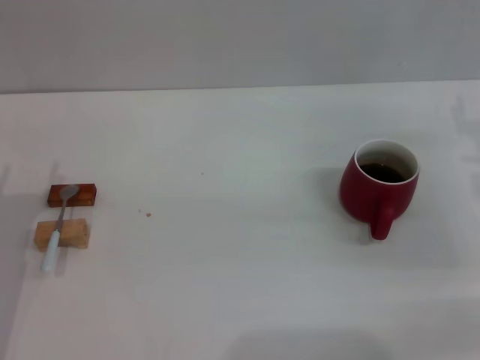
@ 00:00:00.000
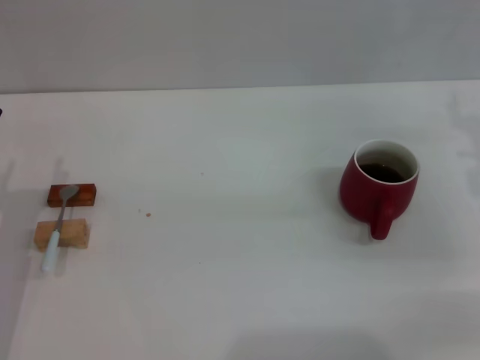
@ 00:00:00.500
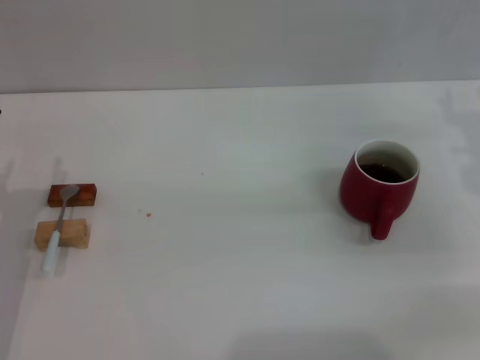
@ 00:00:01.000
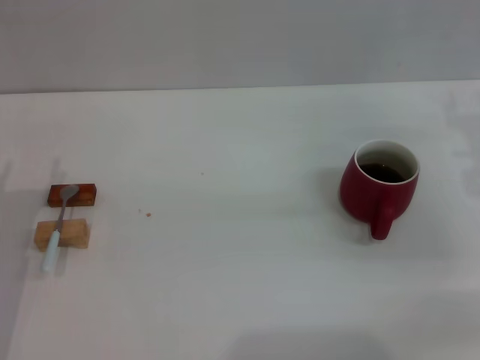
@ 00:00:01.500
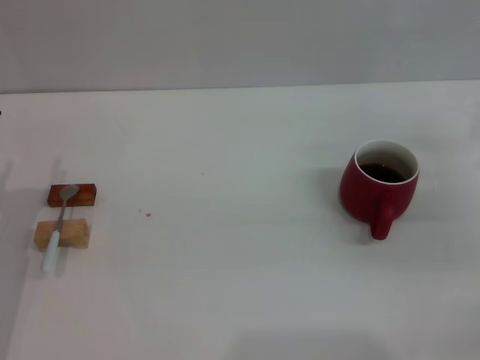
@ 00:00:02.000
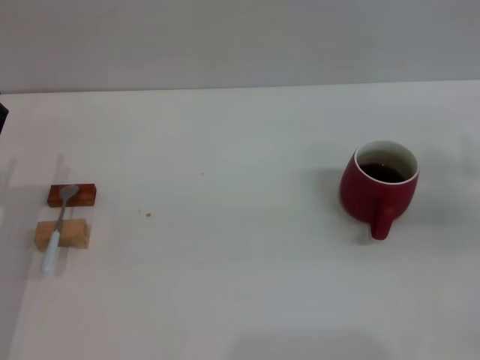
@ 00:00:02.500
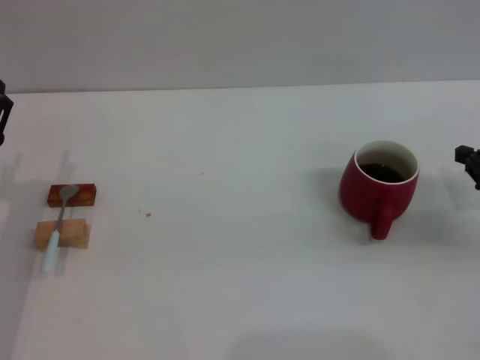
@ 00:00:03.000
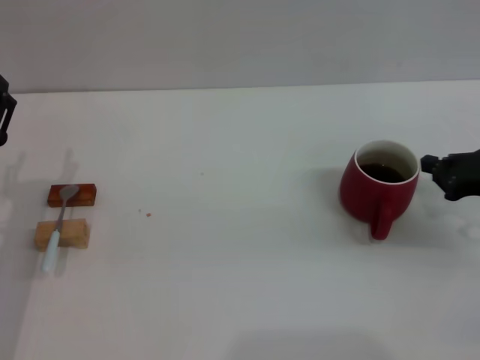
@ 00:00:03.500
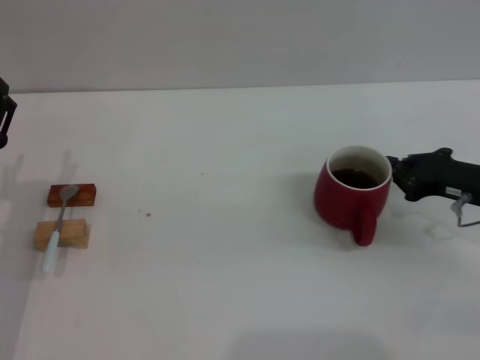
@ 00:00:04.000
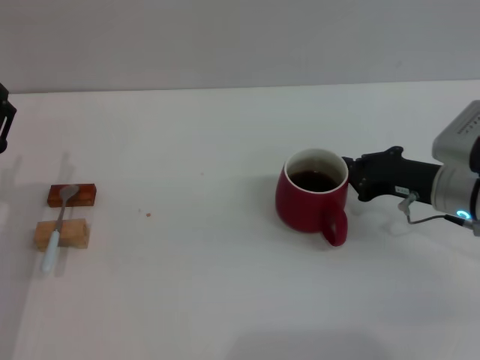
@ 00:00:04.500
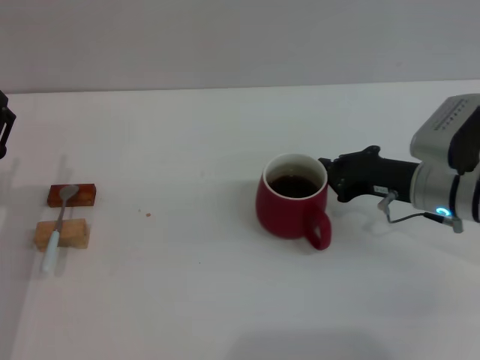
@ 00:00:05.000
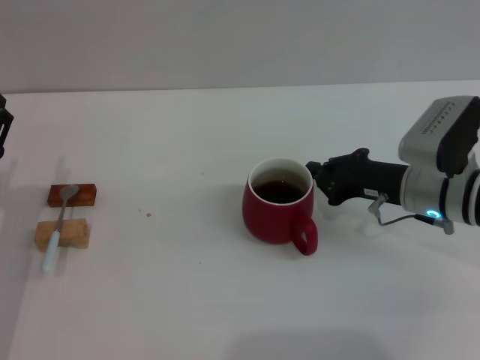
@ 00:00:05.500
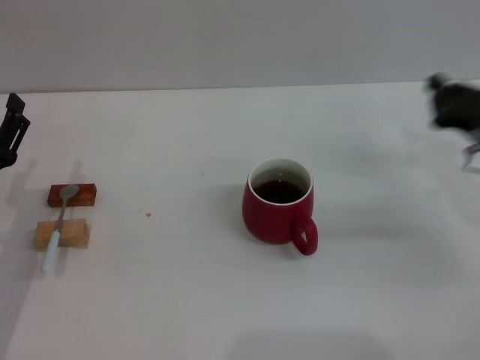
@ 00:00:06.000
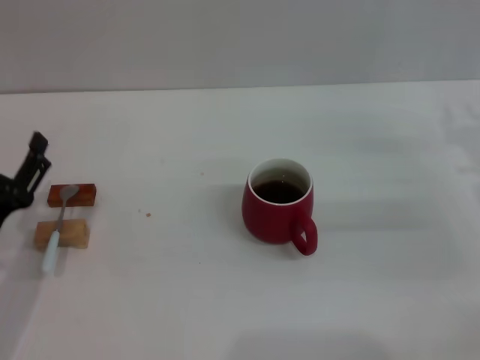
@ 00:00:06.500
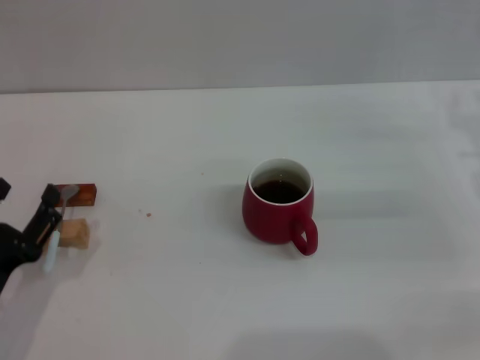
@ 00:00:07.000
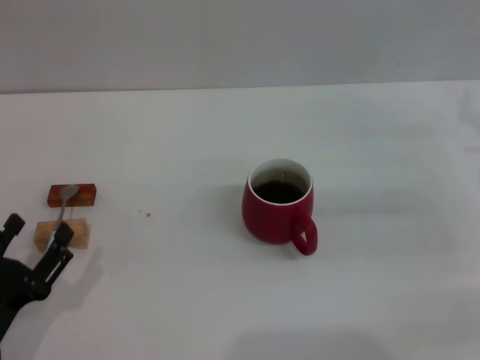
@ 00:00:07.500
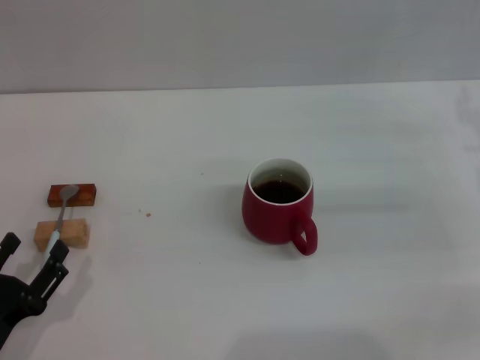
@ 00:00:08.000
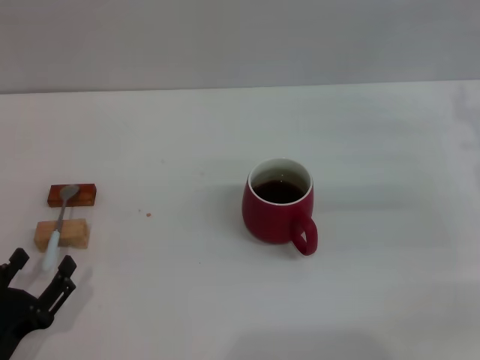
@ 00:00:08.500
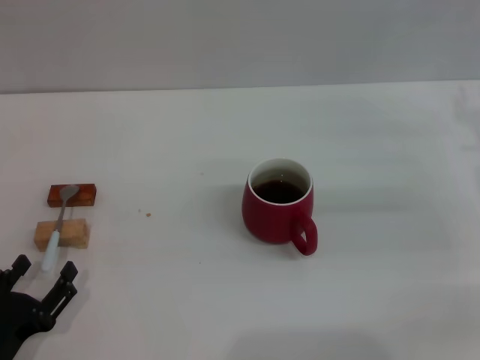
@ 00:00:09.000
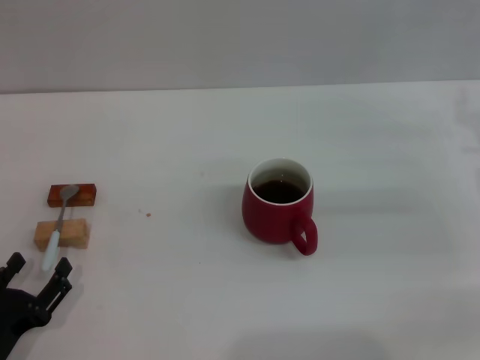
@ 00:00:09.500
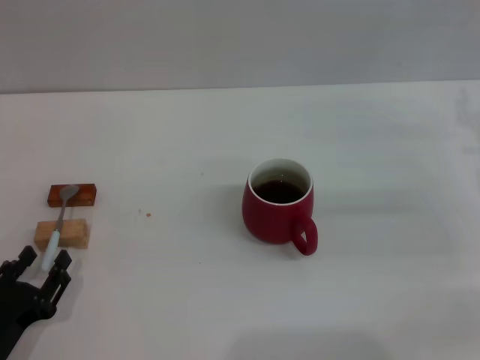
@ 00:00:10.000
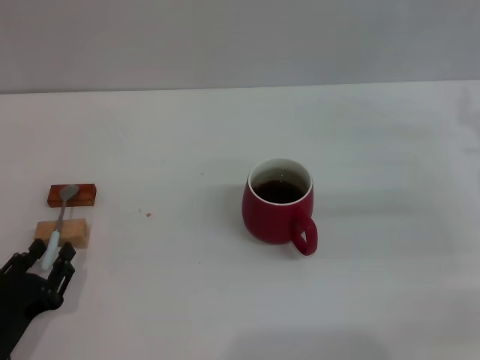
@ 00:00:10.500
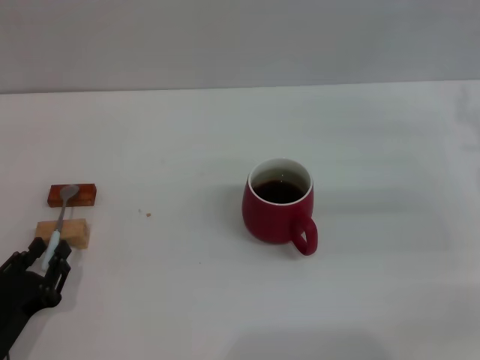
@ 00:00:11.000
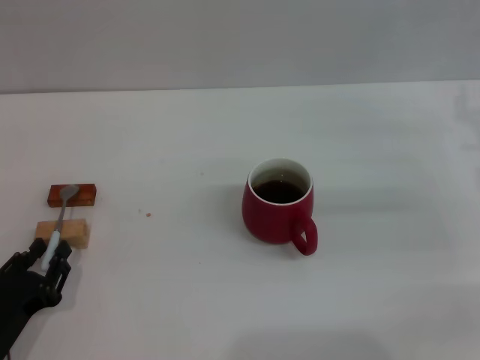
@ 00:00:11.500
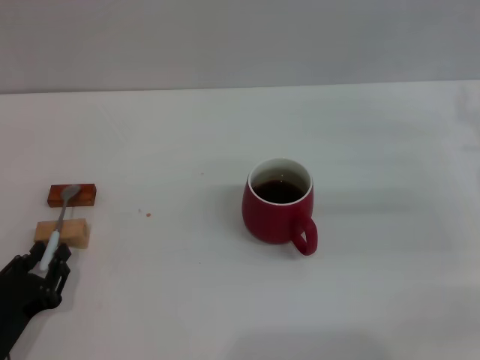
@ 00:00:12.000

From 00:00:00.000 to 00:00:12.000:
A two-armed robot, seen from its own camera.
Task of the whole recording: Move the red cup to the center, lift the blue spoon, stir it three times in the cup, and put the spoon into the cup.
Step, from 00:00:00.000 to 00:00:05.500: Move the cup with coffee to the center of view with the right gripper.
From 00:00:02.000 to 00:00:04.000: The right gripper is displaced to the left by roughly 5 cm, and closes.
From 00:00:04.000 to 00:00:06.000: The right gripper moves about 10 cm to the left and comes back.
From 00:00:06.000 to 00:00:08.000: The right gripper changes place by roughly 5 cm, and opens up, while the left gripper goes some 15 cm backward and downward.
From 00:00:08.000 to 00:00:10.000: The grippers make only small movements.
From 00:00:10.000 to 00:00:12.000: The left gripper closes its fingers.

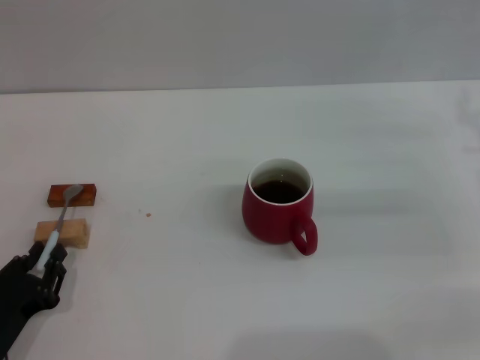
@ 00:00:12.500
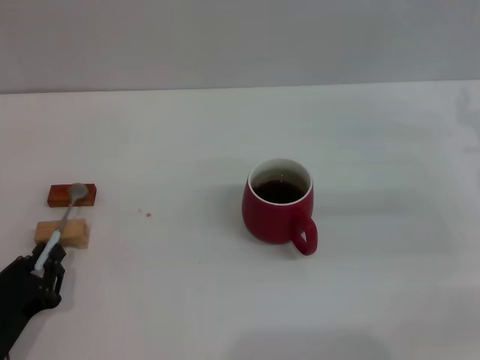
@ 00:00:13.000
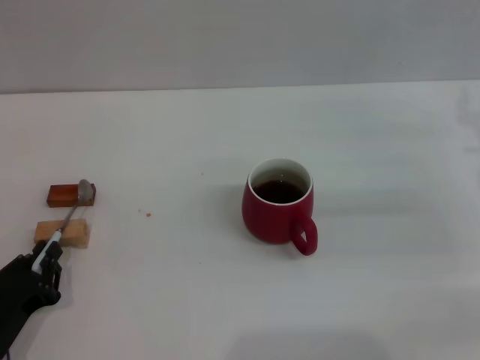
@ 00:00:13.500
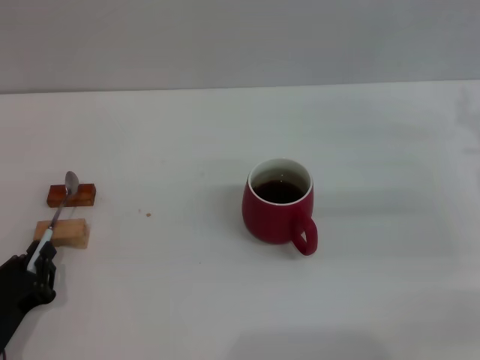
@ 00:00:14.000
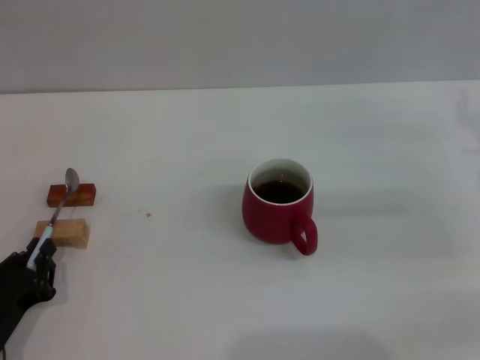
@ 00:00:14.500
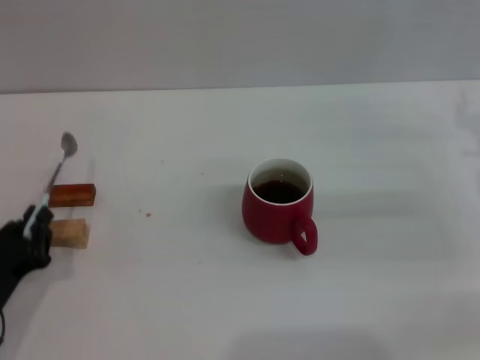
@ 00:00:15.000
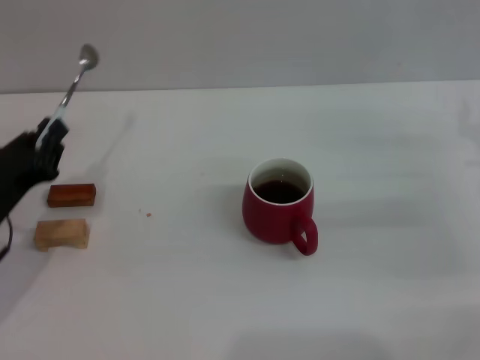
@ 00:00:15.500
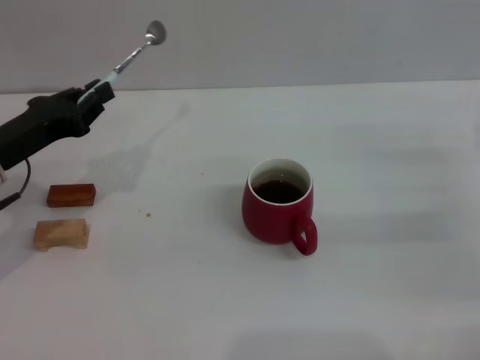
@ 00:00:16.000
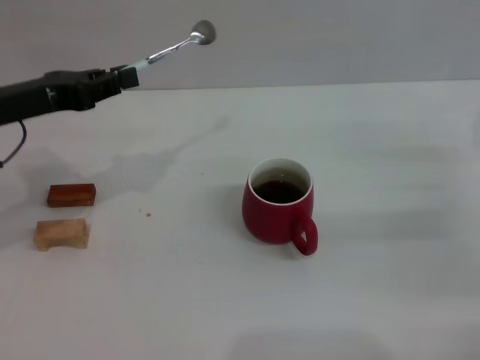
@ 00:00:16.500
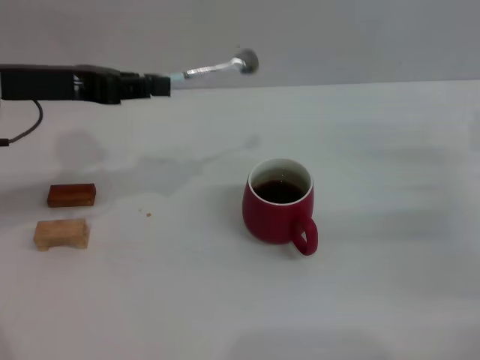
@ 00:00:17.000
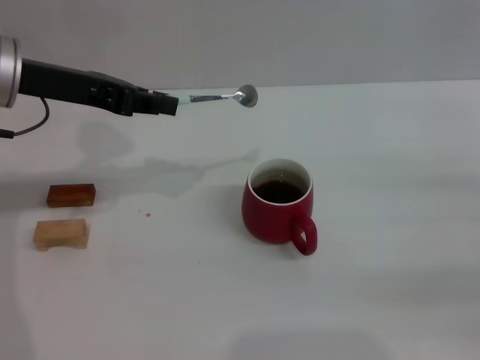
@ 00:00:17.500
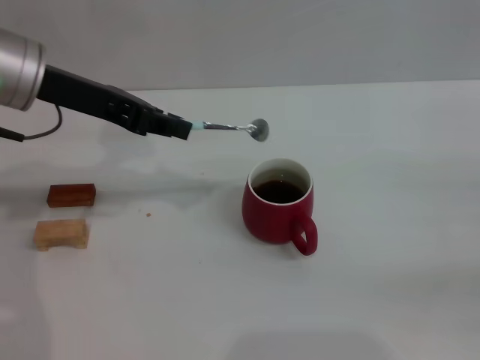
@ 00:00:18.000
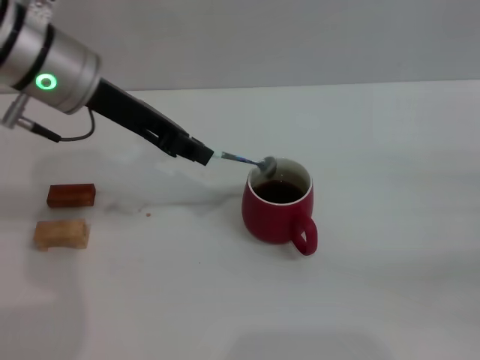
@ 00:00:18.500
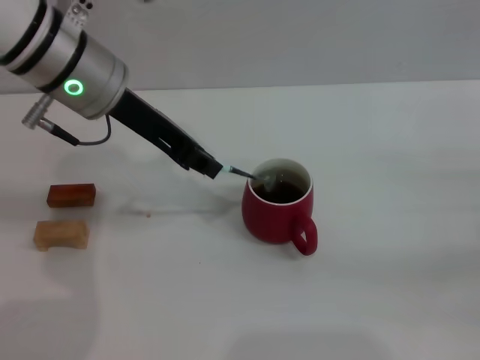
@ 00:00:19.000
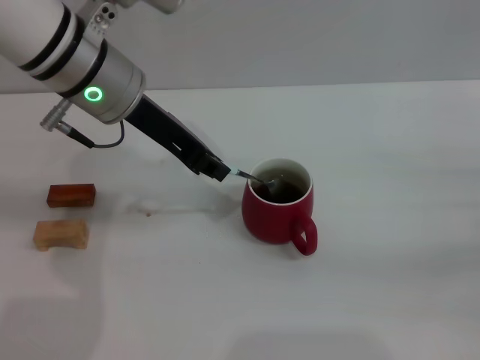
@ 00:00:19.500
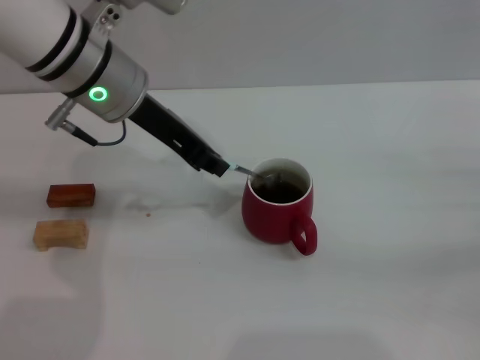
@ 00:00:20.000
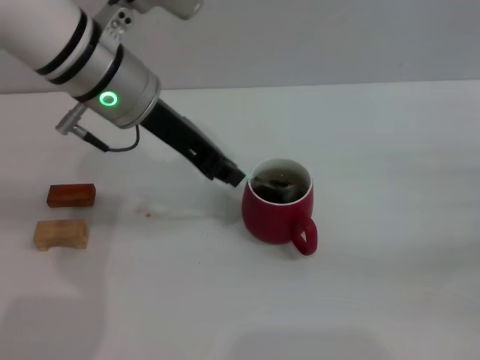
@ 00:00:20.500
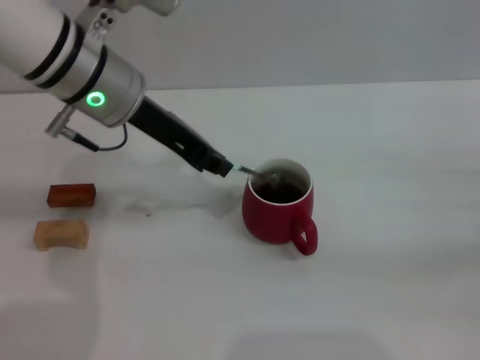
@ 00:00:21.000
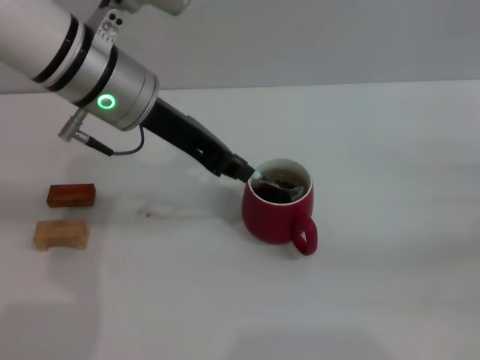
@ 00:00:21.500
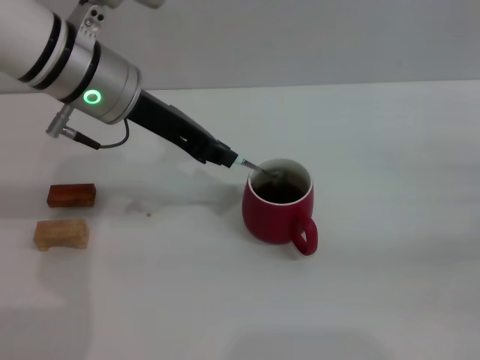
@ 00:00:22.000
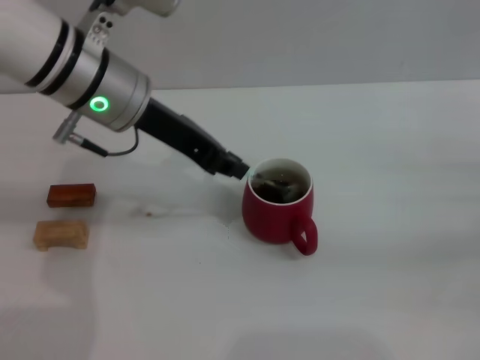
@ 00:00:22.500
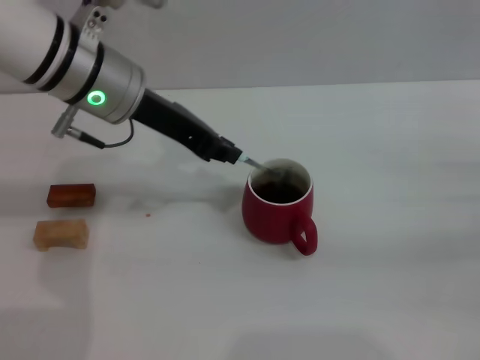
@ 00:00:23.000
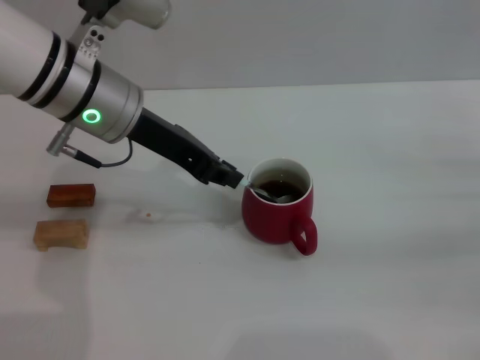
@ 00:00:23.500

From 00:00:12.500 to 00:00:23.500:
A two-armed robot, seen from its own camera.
Task of the whole recording: Move the red cup to the center, lift the blue spoon, stir it three times in the cup, and put the spoon into the cup.
Step, from 00:00:12.500 to 00:00:15.500: Pick up the spoon with the left gripper.
From 00:00:12.500 to 00:00:14.500: Both grippers stay about where they are.
From 00:00:14.500 to 00:00:16.000: The left gripper is displaced forward and upward by approximately 20 cm.
From 00:00:16.000 to 00:00:18.000: The left gripper travels upward and to the right by some 15 cm, while the right gripper moves to the right and backward, some 10 cm.
From 00:00:18.000 to 00:00:20.000: The left gripper heads to the right, covering roughly 10 cm.
From 00:00:20.000 to 00:00:23.500: The grippers make only small movements.

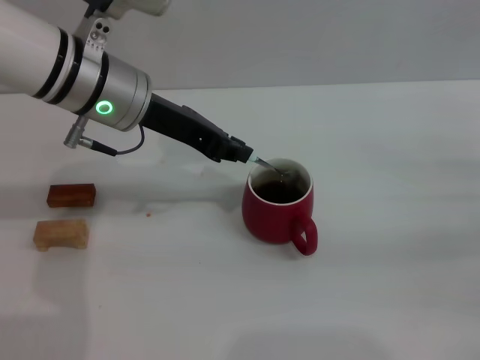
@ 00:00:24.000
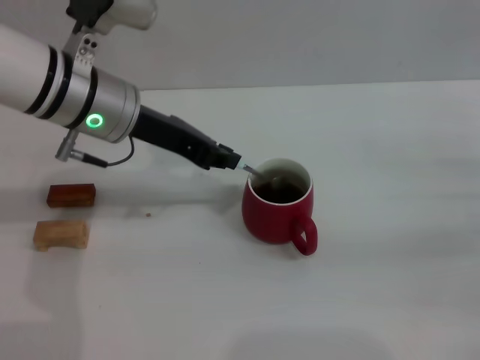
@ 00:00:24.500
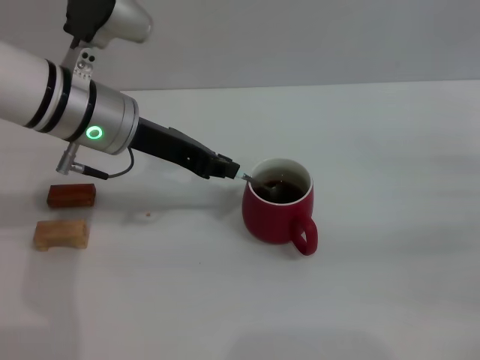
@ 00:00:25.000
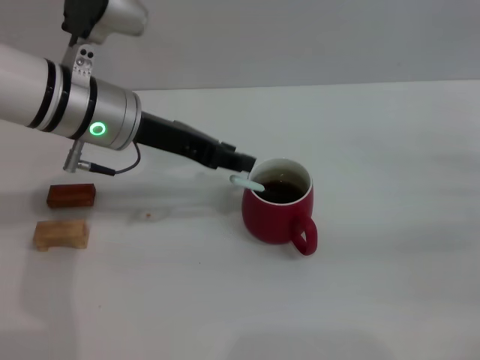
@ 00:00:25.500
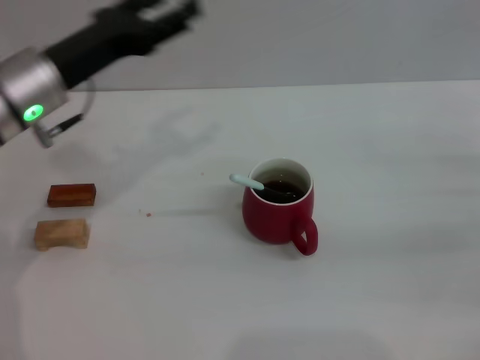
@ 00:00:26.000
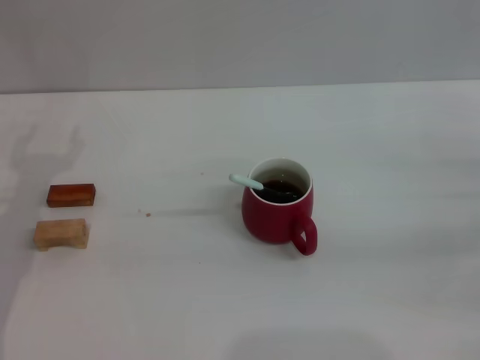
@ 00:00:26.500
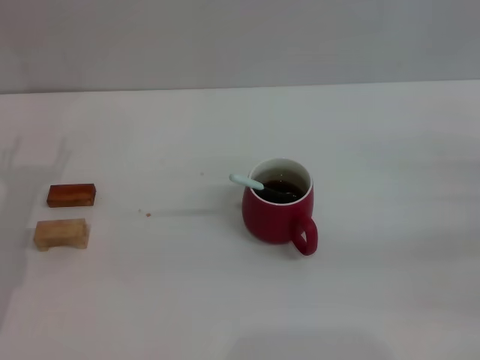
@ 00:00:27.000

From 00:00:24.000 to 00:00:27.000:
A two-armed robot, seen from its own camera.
Task of the whole recording: Move the red cup to the center, lift the blue spoon, stir it three times in the cup, and put the spoon into the cup.
From 00:00:24.000 to 00:00:25.500: The grippers move only a little.
From 00:00:25.500 to 00:00:27.000: The left gripper travels to the left, backward and downward by roughly 20 cm, and opens.
